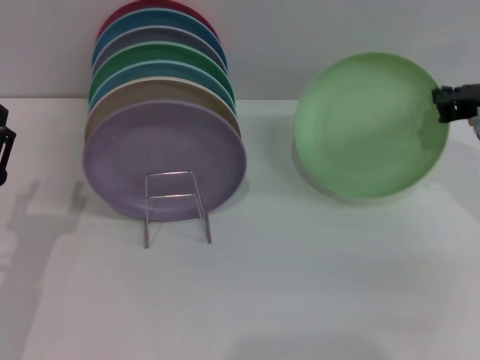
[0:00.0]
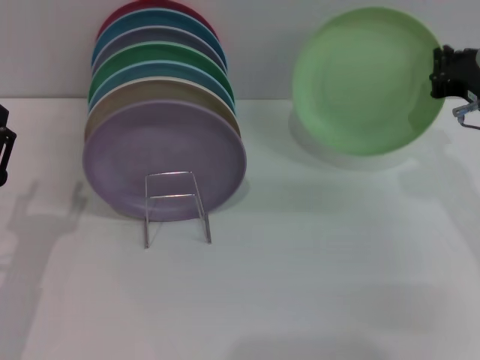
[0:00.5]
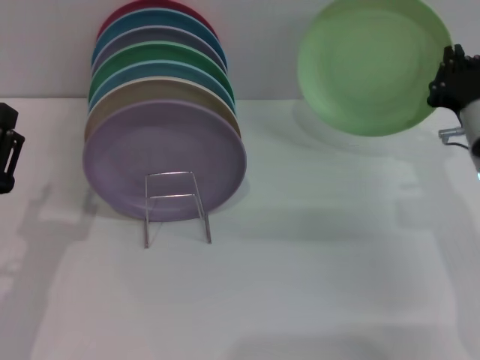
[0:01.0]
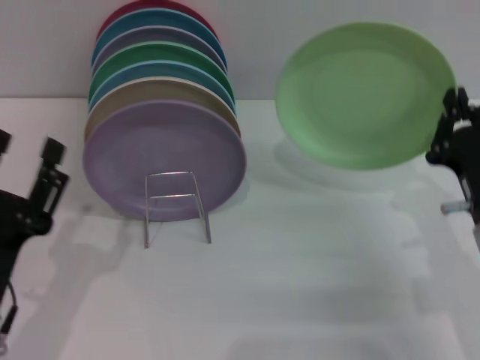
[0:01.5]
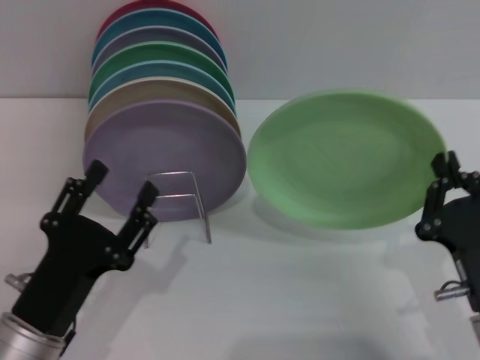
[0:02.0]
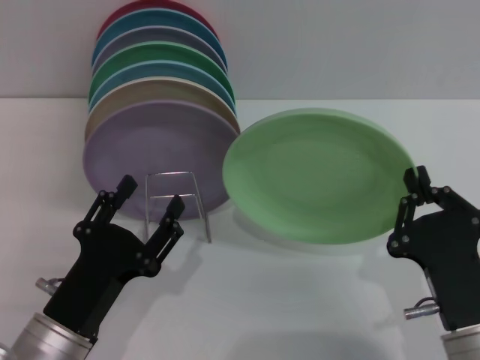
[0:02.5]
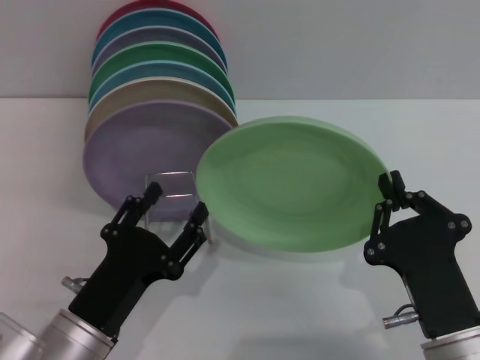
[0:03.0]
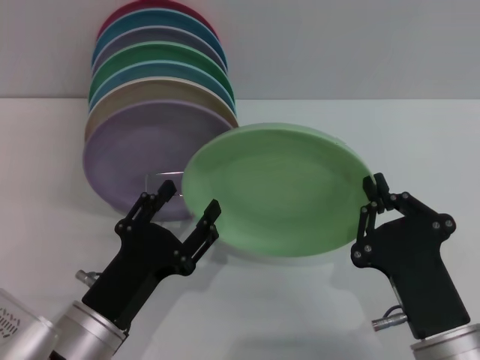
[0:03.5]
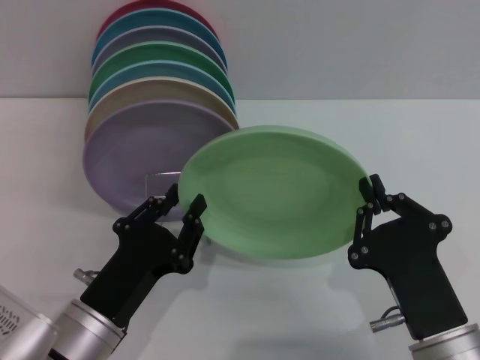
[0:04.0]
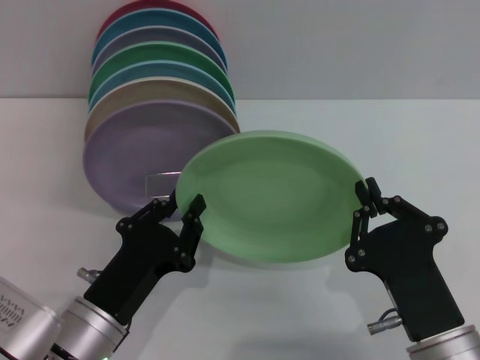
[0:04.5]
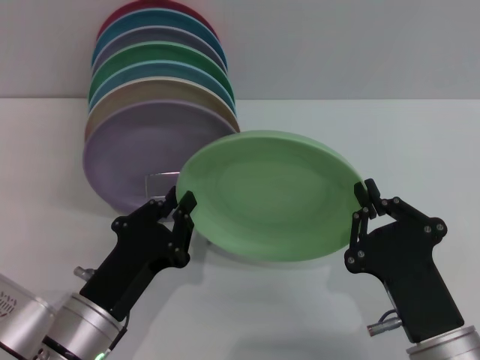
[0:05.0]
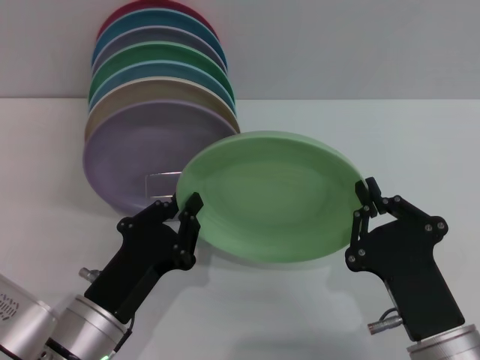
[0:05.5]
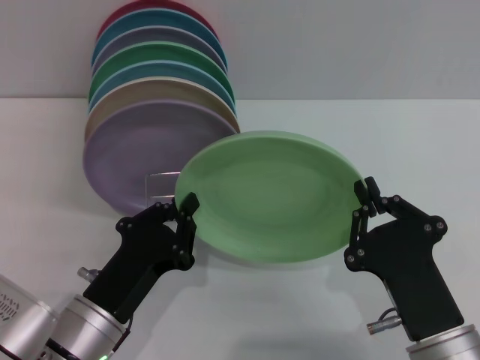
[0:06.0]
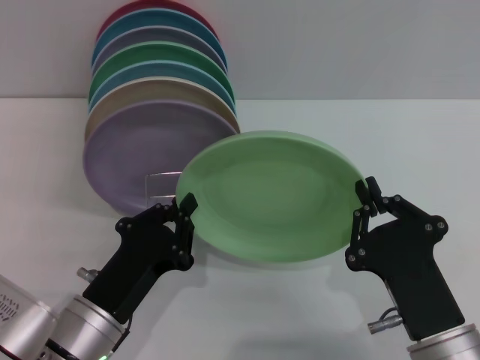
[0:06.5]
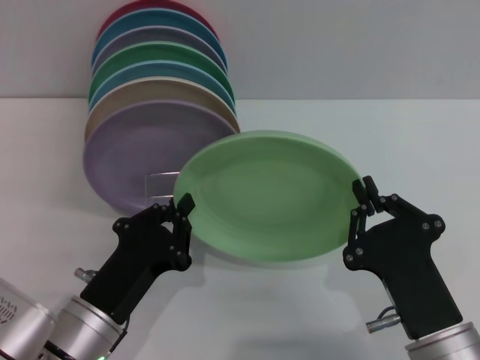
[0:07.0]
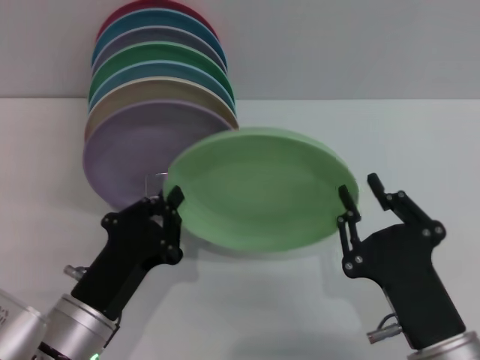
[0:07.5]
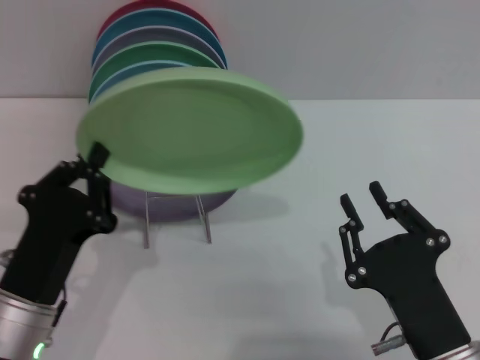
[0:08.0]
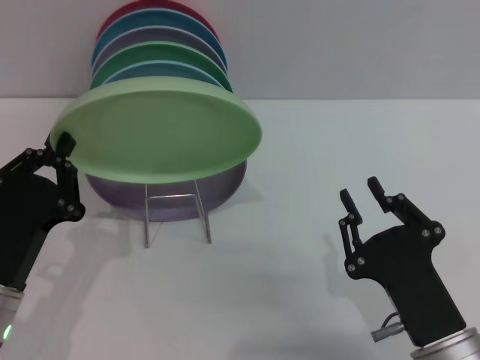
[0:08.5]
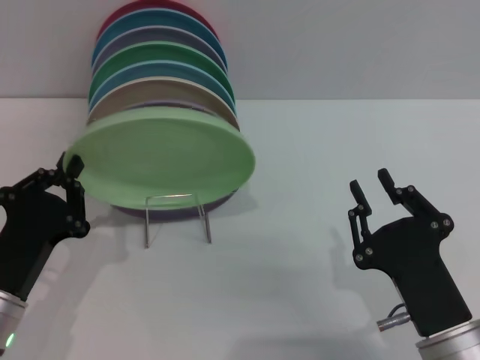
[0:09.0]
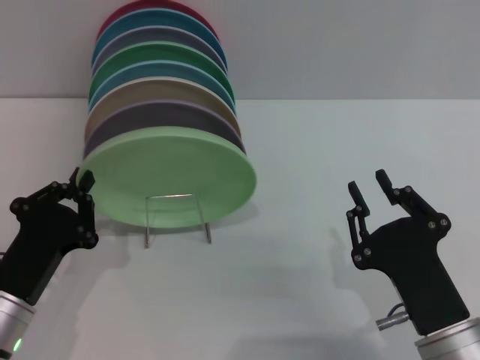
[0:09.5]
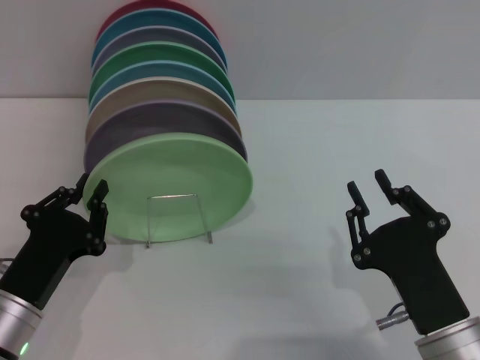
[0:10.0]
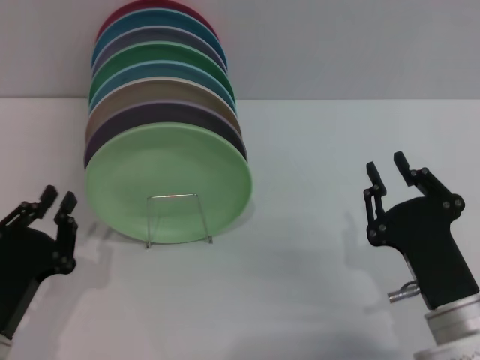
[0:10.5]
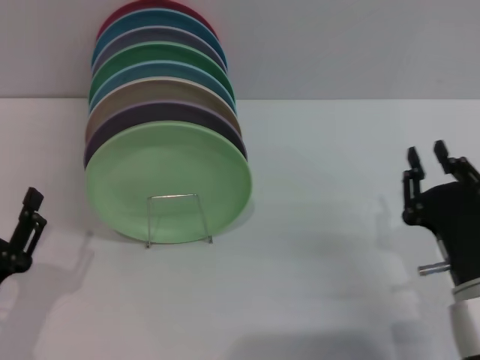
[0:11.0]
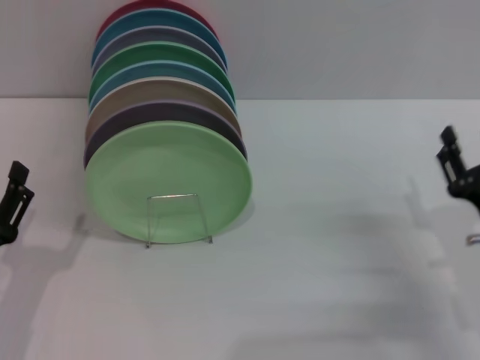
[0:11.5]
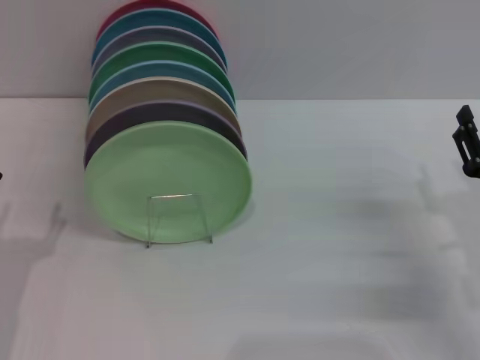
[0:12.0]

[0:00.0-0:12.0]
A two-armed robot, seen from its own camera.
Task of the whole recording: Grip the plate with one hand, pass it to the other, then set it on the shelf.
Step, 0:00.5 to 0:07.5: Pass the plate from the right gripper to the left gripper.
Step, 0:08.0 to 0:10.0: Place the plate on the shelf with the left gripper.
0:00.0 to 0:02.0: The right gripper is displaced backward and downward by about 20 cm; the left gripper travels to the right by about 5 cm.
0:02.0 to 0:04.0: The right gripper is displaced to the left by about 5 cm.
0:04.0 to 0:06.0: The left gripper closes up.
0:08.0 to 0:10.0: The left gripper moves about 5 cm.
0:10.0 to 0:12.0: The left gripper shifts by some 5 cm, and opens. Meanwhile the right gripper is displaced to the right and forward by approximately 15 cm, and opens up.

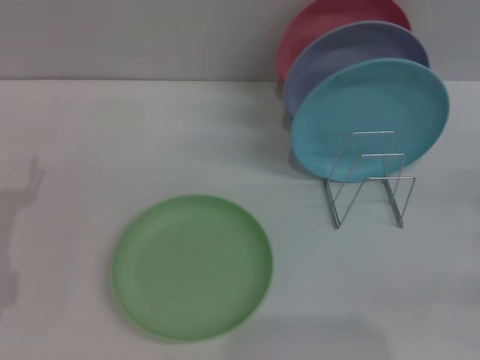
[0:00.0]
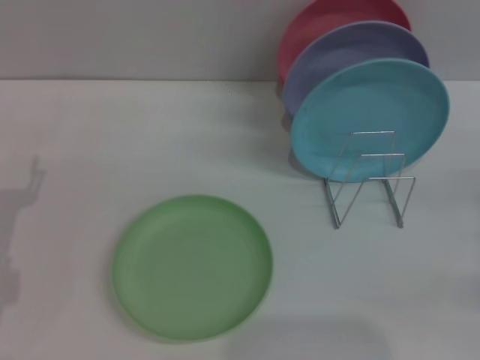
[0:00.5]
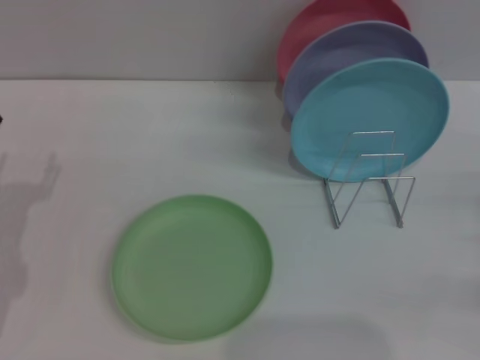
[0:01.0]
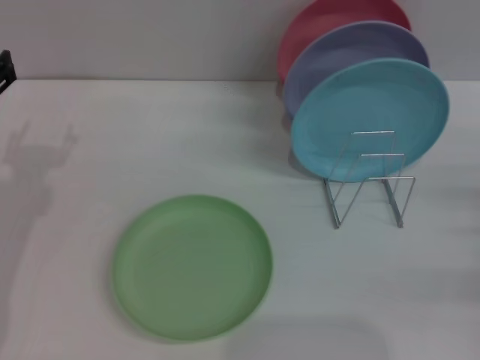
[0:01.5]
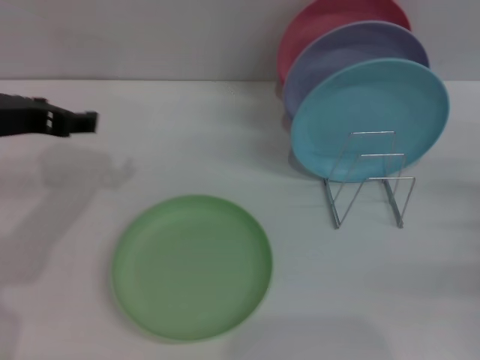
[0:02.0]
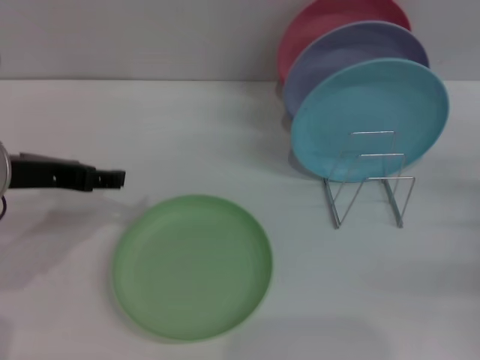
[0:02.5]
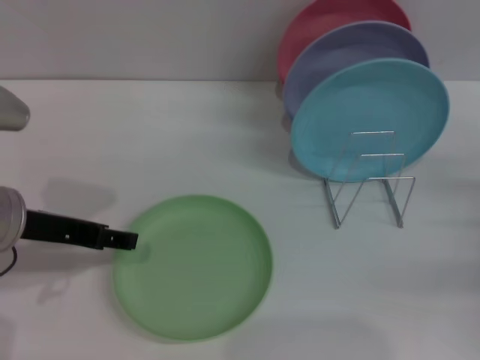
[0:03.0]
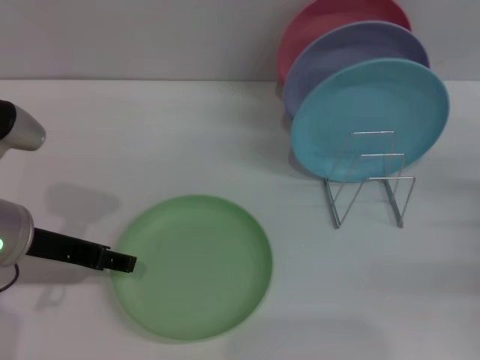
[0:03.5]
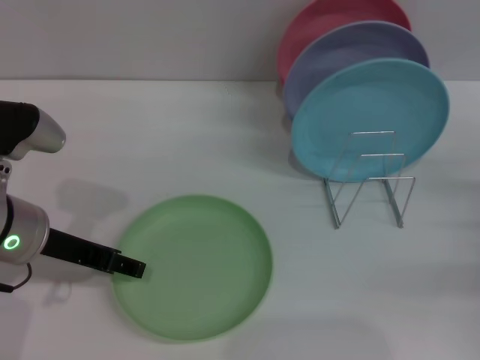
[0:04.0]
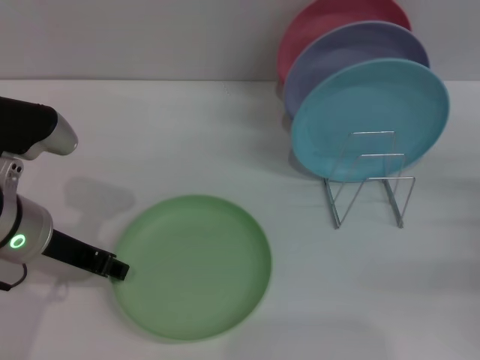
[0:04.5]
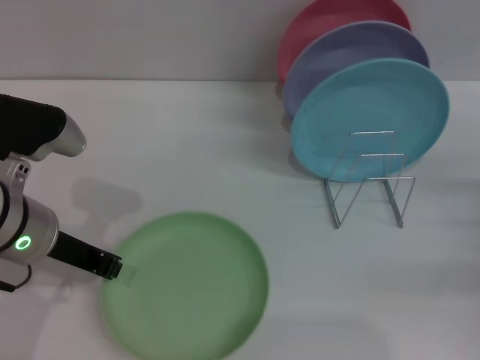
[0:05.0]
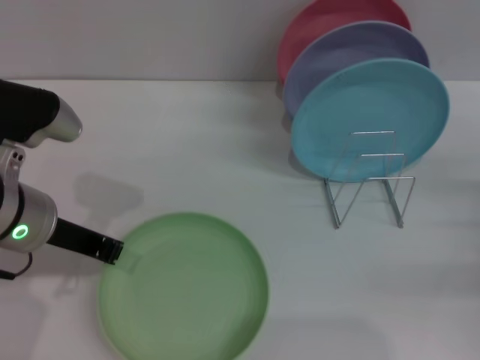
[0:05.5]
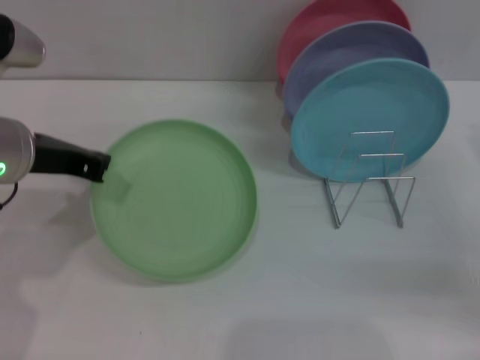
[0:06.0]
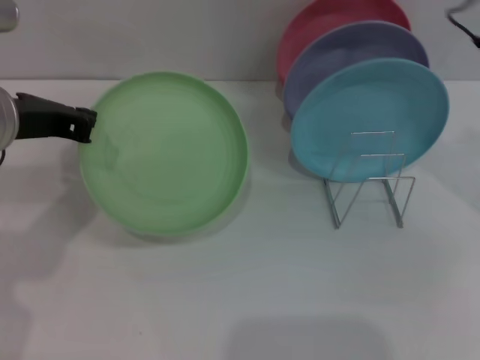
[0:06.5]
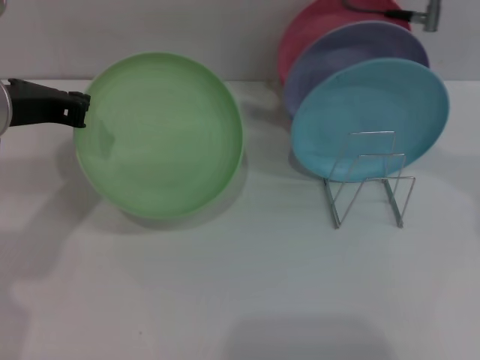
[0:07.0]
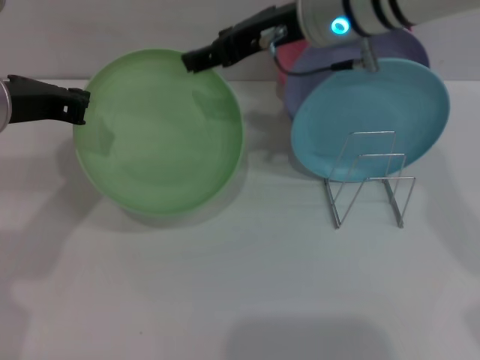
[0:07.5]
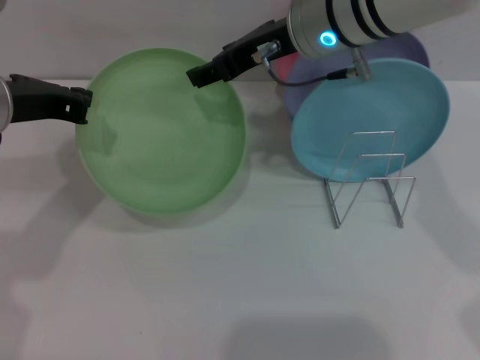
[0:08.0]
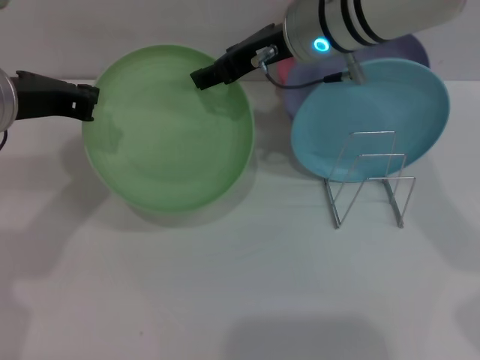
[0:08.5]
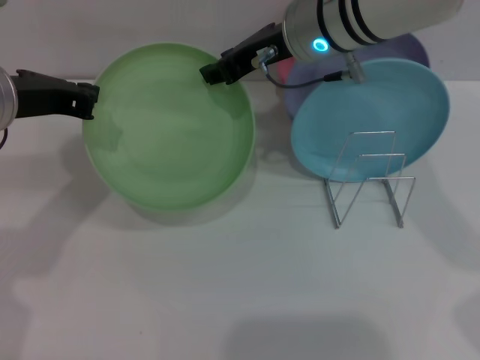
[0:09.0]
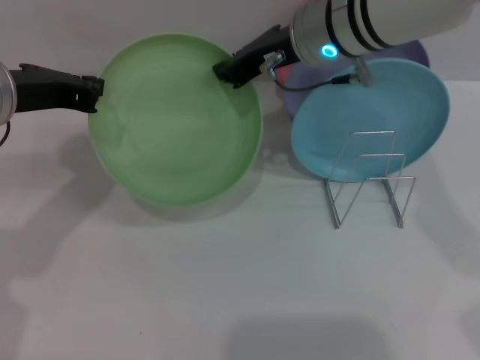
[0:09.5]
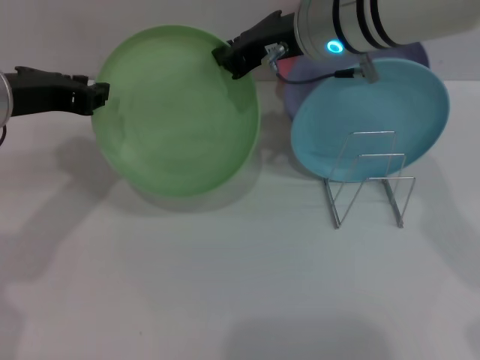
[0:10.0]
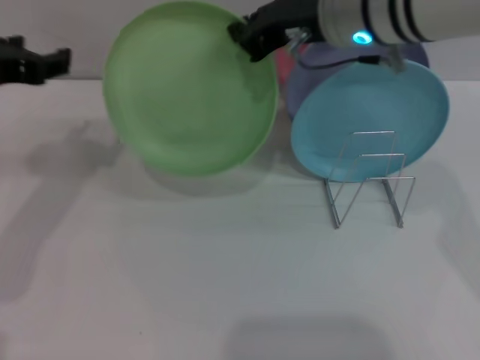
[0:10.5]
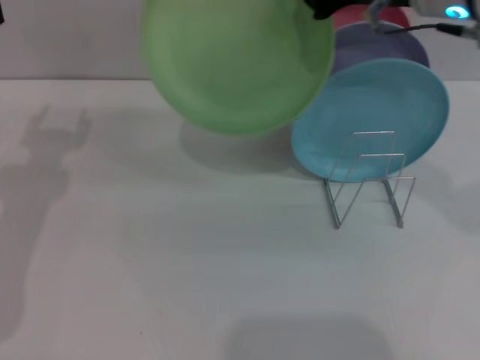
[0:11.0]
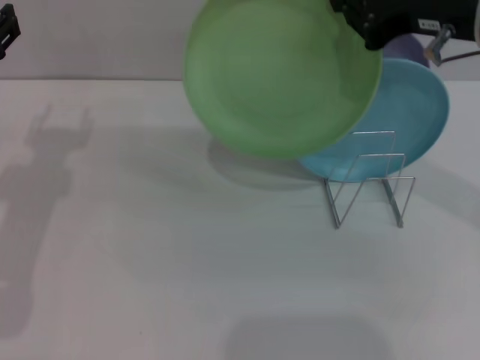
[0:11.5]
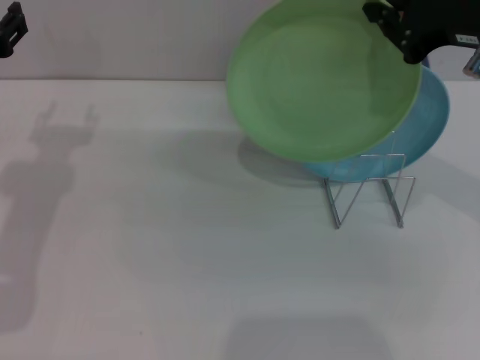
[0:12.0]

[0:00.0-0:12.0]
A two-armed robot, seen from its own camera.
Task of the whole recording: Grip the plate with one hand, pass it to the other, then set it on the shelf.
Step, 0:00.0 to 0:05.5: Pick up the plate with the left gripper.
0:00.0 to 0:02.0: The left gripper goes some 15 cm upward and forward.
0:02.0 to 0:04.0: The left gripper heads downward, covering approximately 5 cm.
0:04.0 to 0:06.0: Both grippers move upward, some 5 cm. The left gripper closes.
0:06.0 to 0:08.0: The right gripper goes approximately 30 cm to the left, upward and forward.
0:08.0 to 0:10.0: The right gripper closes.
0:10.0 to 0:12.0: The right gripper shifts roughly 15 cm to the right and backward; the left gripper shifts by about 5 cm, and opens its fingers.

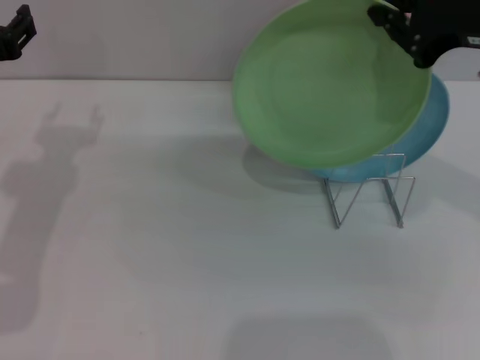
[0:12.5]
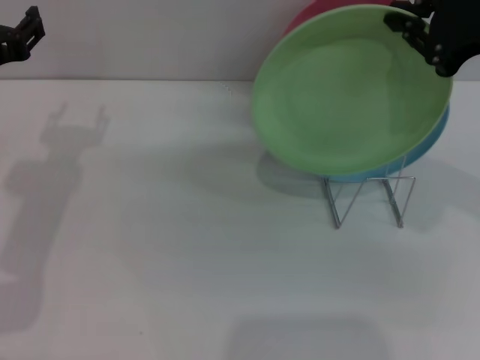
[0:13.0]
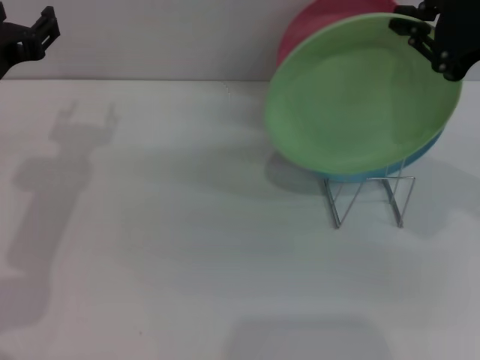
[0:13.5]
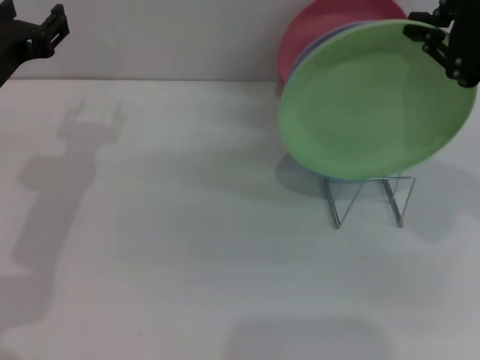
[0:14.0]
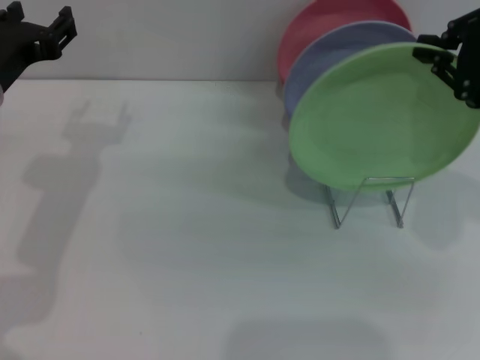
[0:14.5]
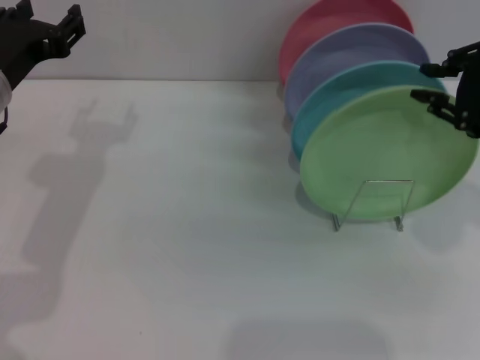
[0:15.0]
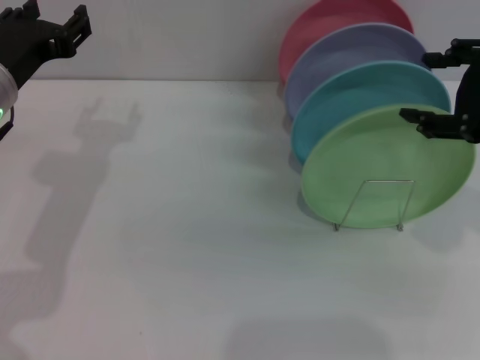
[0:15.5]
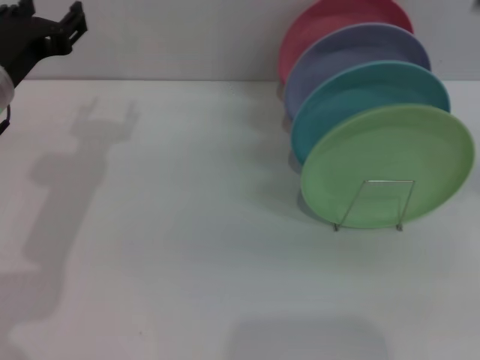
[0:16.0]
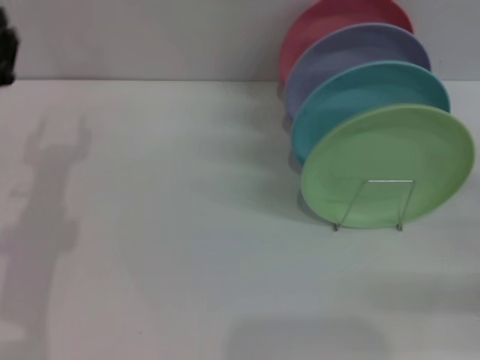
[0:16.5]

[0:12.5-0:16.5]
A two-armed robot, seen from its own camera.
Task of the whole recording: Grip the plate with one hand, pass it to the other, then set it on the shelf.
Step, 0:12.5 to 0:15.0: Place the plate on the shelf with the right gripper.
0:12.5 to 0:14.5: The grippers move only a little.
0:14.5 to 0:16.5: The right gripper goes roughly 20 cm downward and to the right, and opens up. The left gripper heads downward, covering roughly 10 cm.
